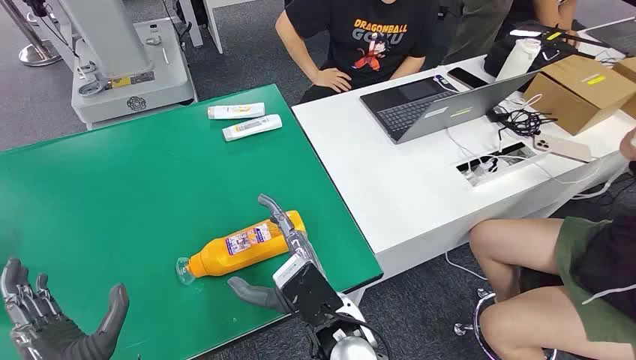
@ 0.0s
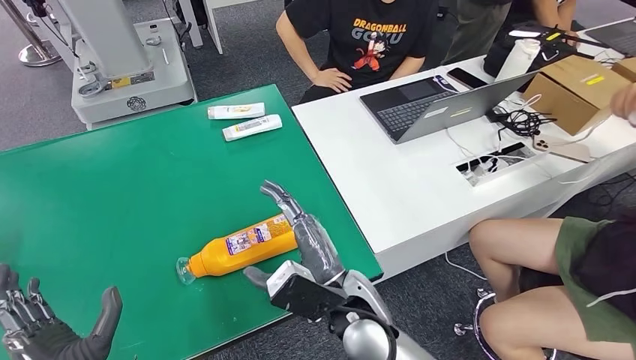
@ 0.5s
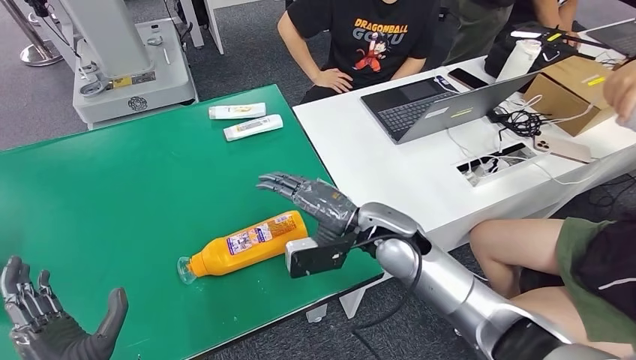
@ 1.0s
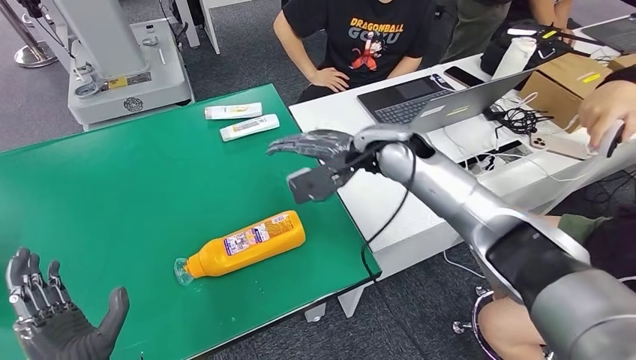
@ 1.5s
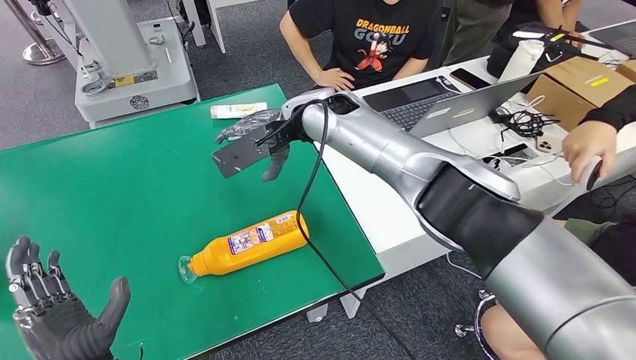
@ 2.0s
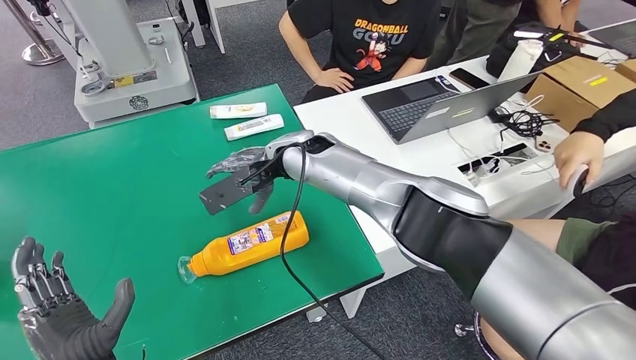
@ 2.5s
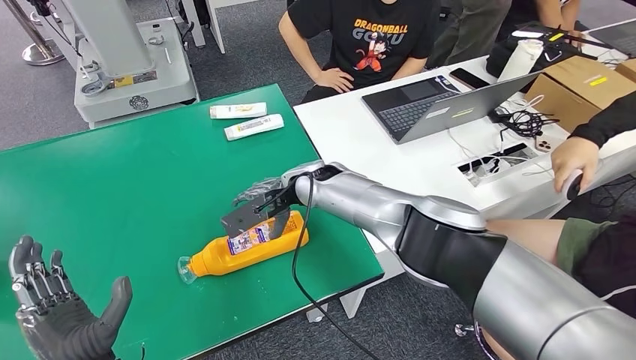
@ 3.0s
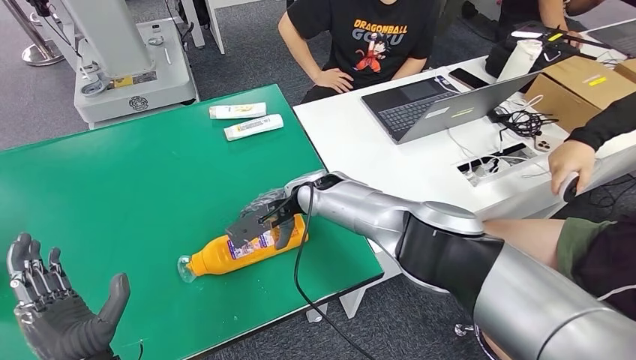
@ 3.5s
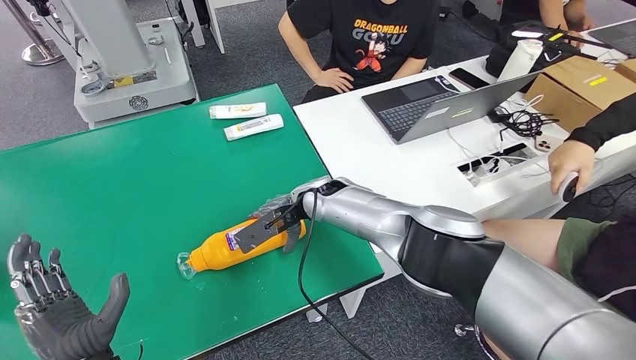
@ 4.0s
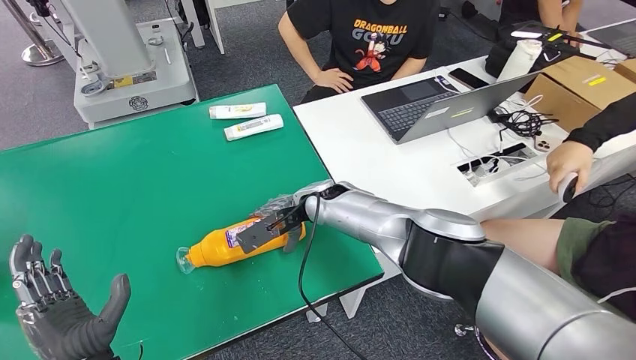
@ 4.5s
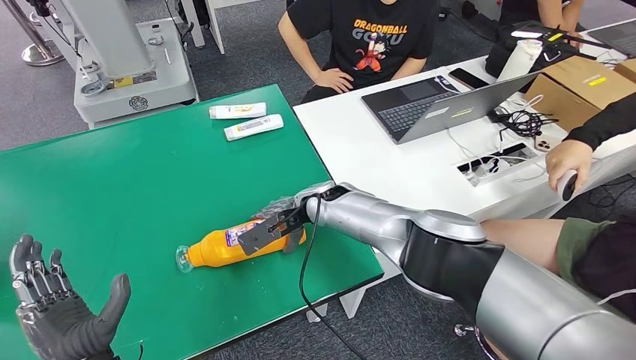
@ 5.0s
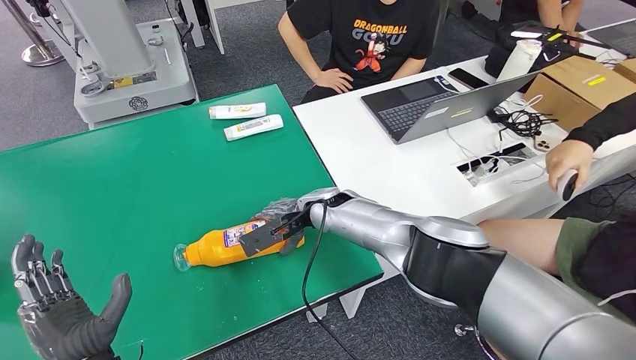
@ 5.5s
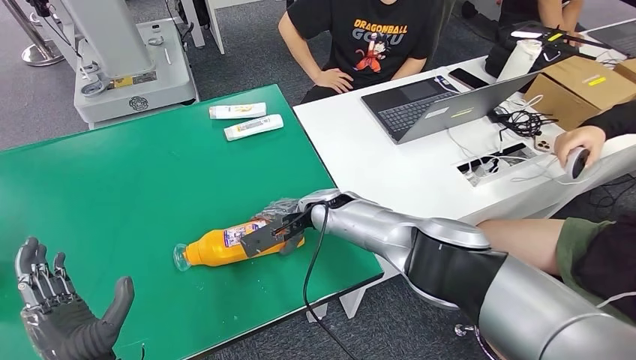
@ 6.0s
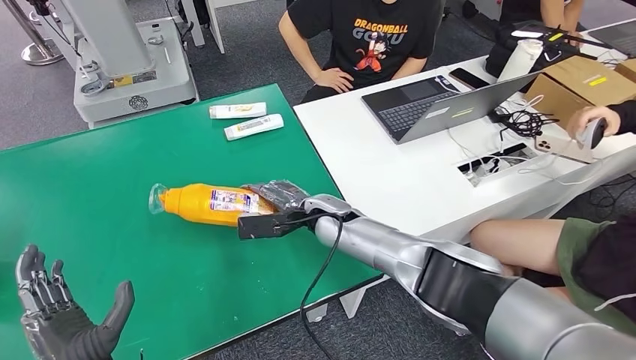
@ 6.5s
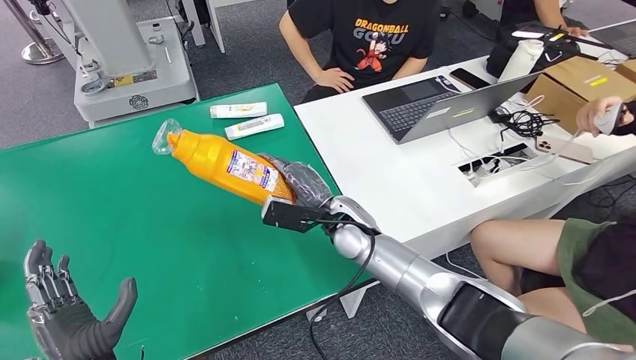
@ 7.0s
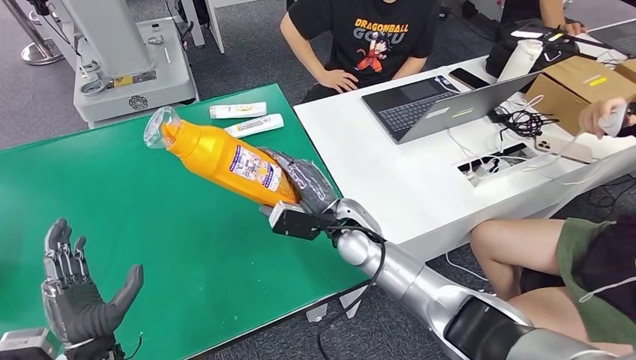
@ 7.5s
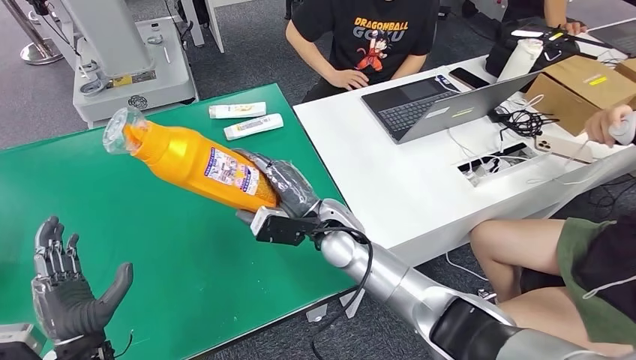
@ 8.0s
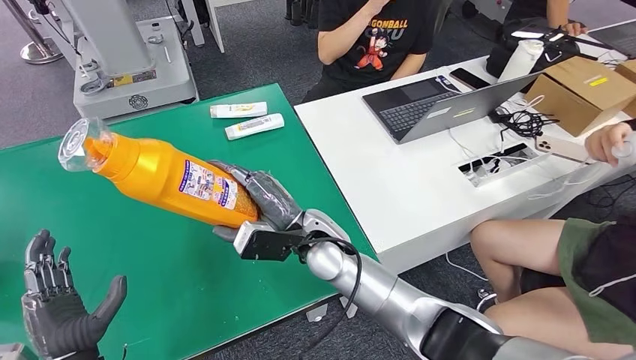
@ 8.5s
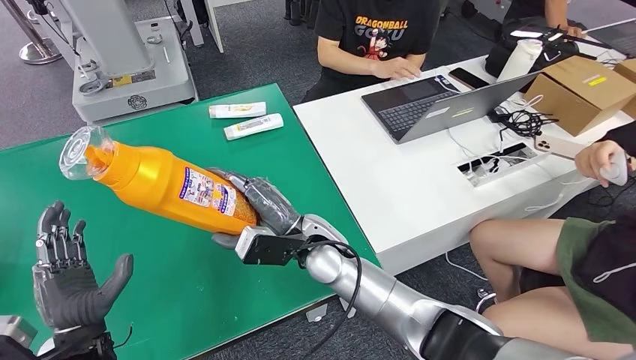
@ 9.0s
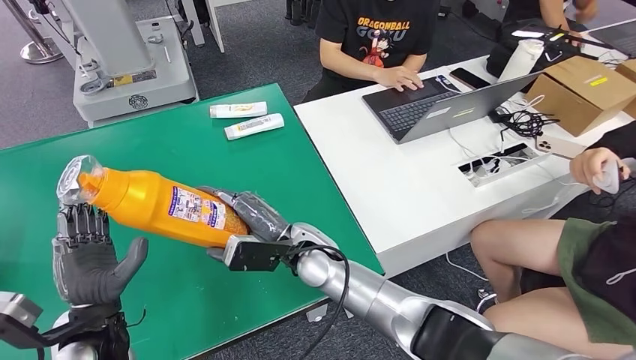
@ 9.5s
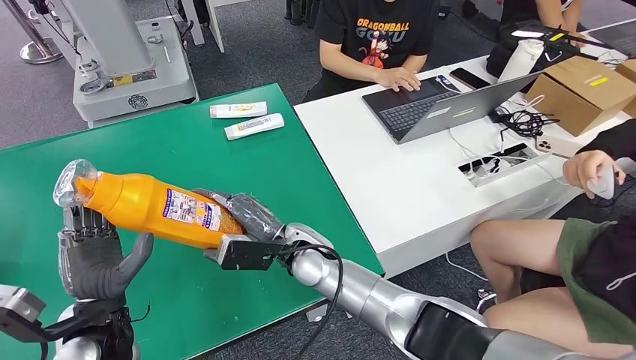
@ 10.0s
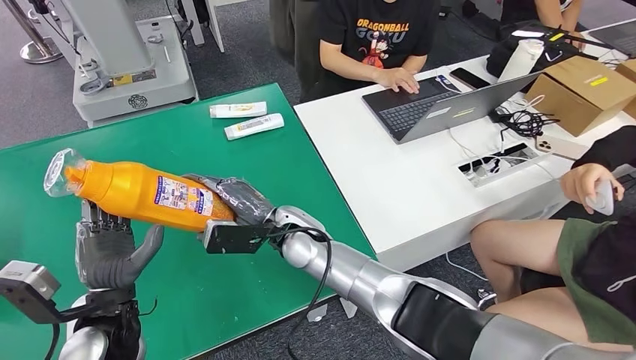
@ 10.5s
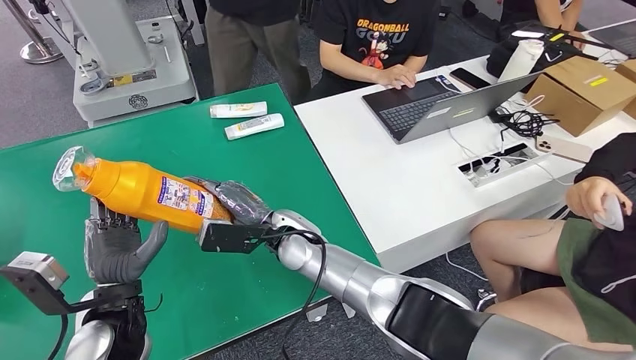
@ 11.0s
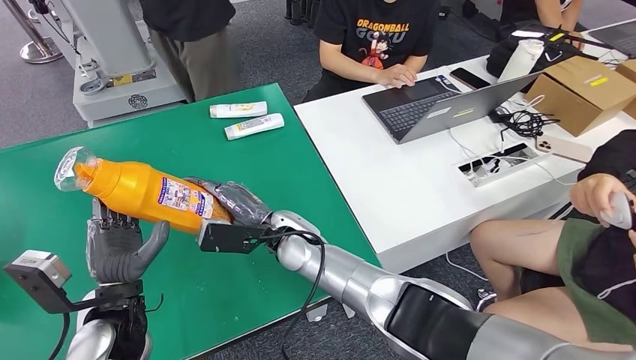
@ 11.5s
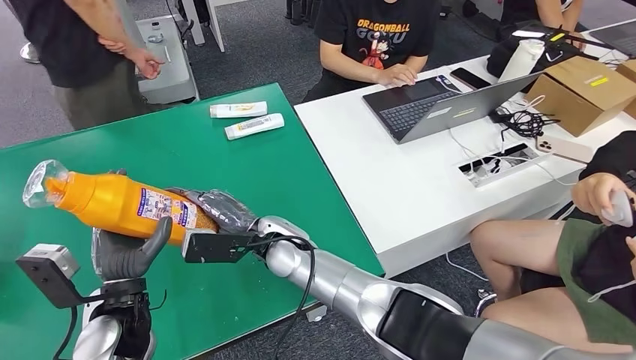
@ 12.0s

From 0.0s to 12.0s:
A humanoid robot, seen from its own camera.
Step, from 0.0s to 6.5s: Pick up the bottle from the table.
From 4.0s to 6.0s: There are only small adjustments of the hands.

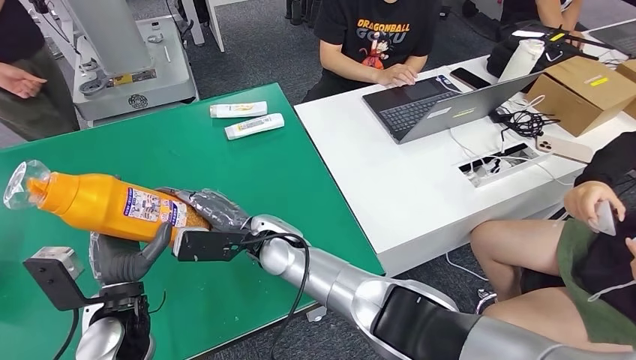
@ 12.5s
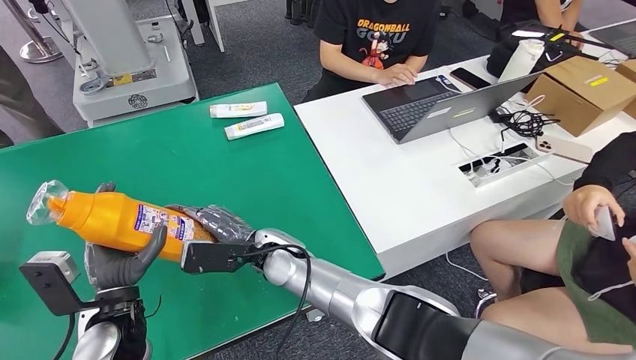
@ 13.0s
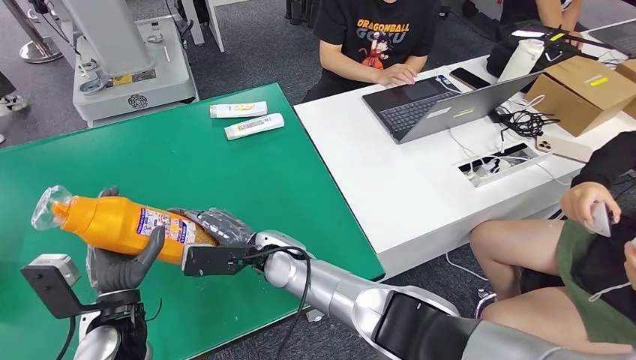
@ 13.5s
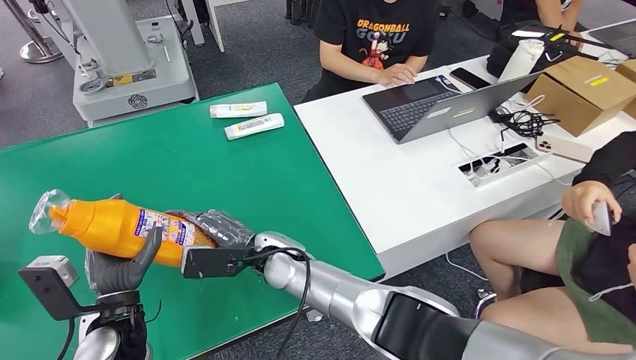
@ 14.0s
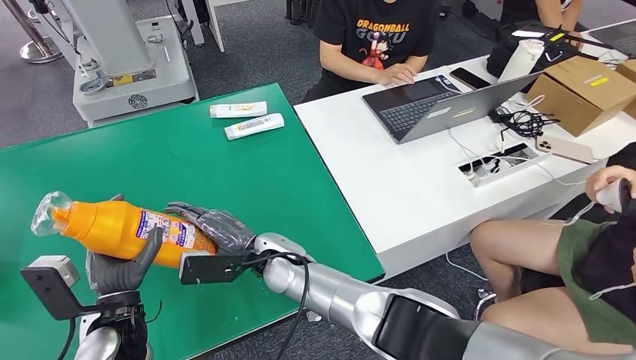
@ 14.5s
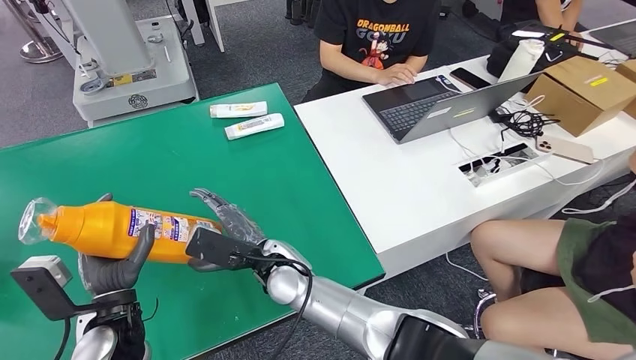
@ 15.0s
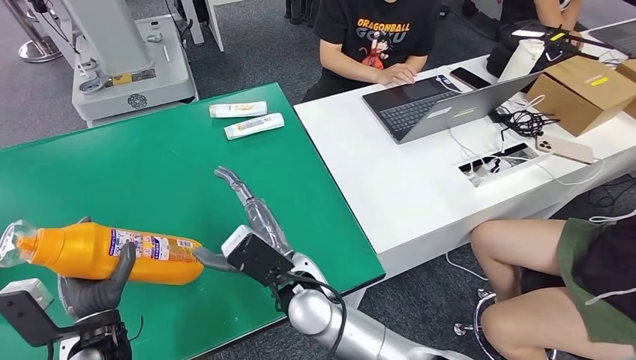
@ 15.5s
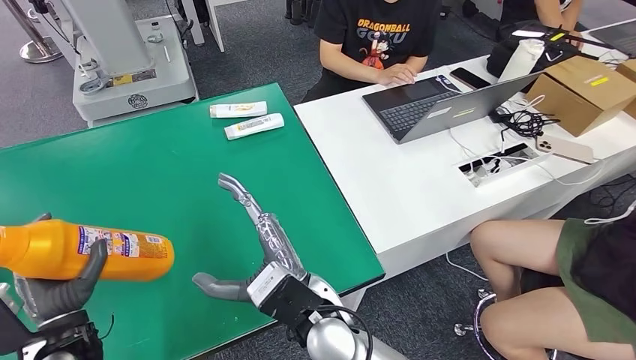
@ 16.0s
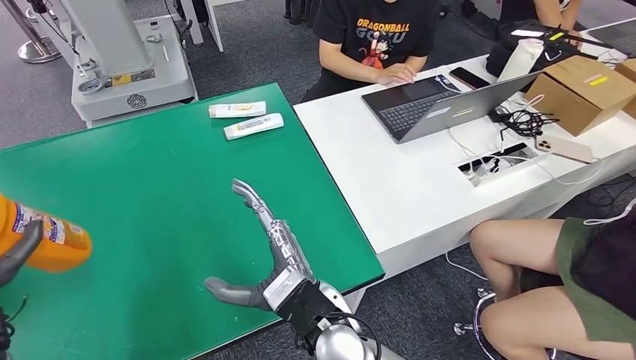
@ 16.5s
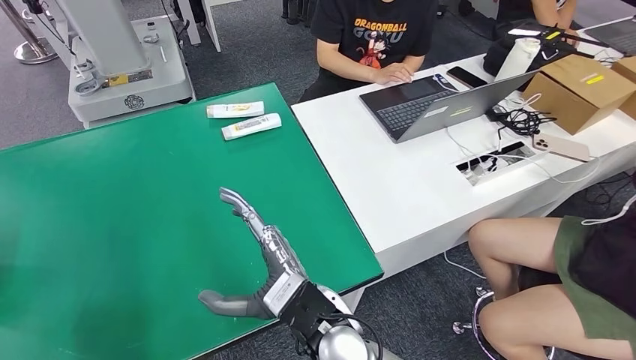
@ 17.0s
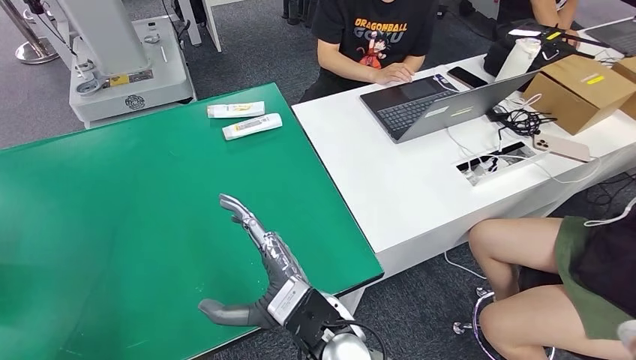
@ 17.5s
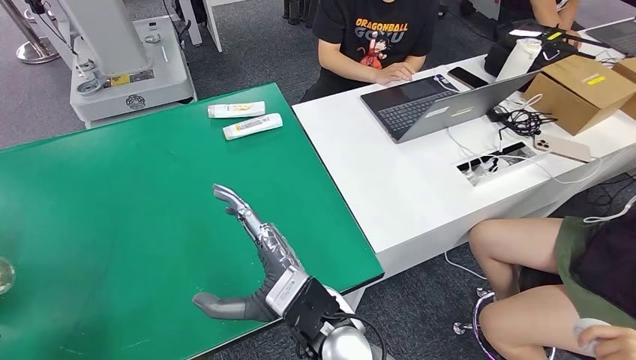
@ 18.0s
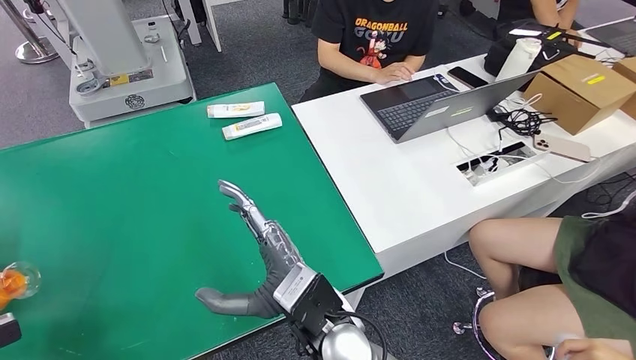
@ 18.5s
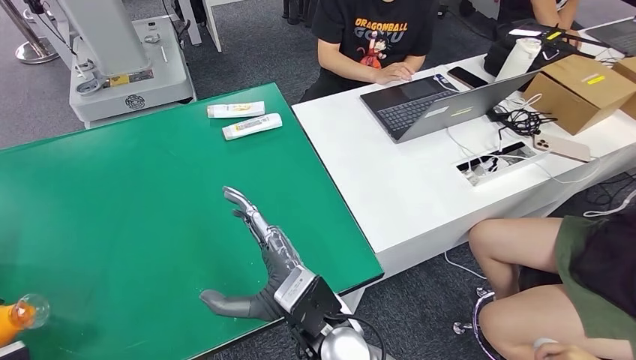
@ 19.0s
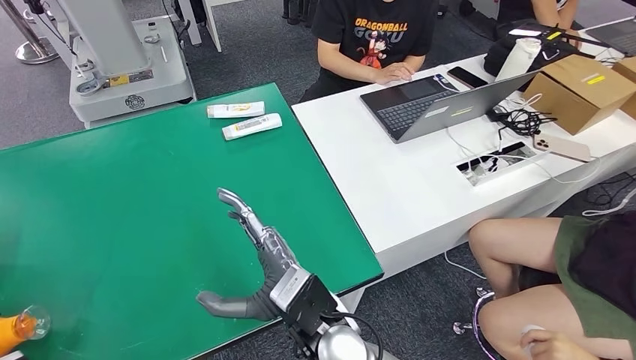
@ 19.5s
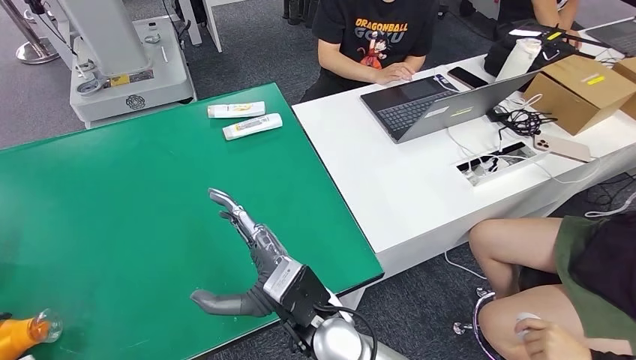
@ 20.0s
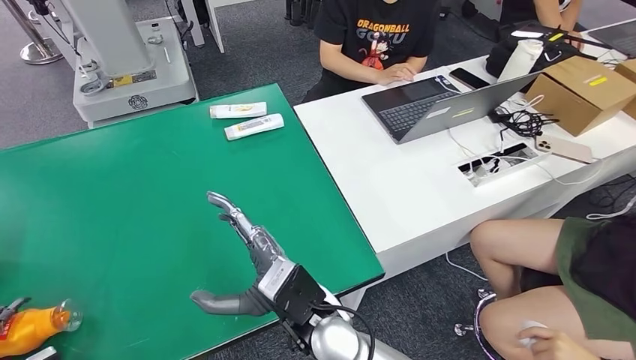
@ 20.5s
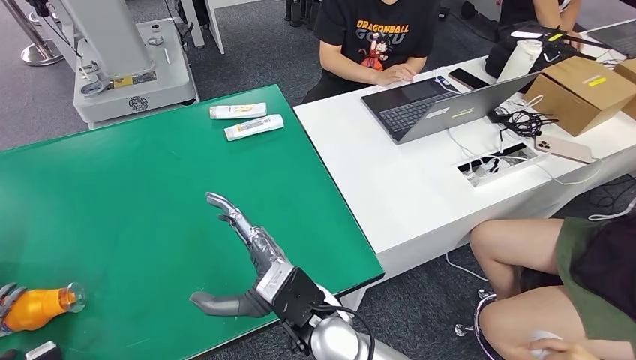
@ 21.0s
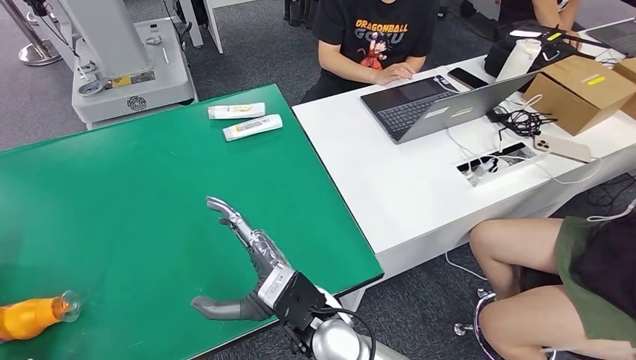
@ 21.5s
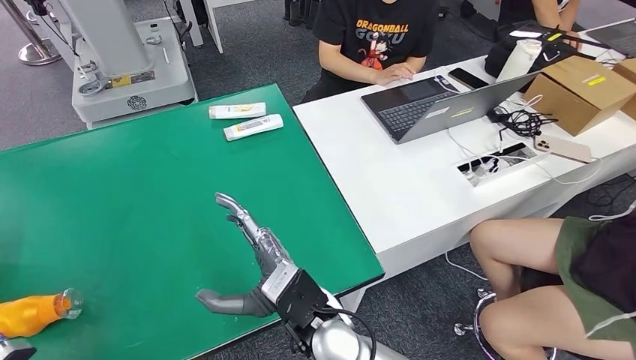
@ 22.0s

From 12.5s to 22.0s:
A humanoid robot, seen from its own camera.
Step, from 12.5s to 22.0s: Turn the bottle to the front side.
From 14.5s to 16.5s: The left hand is displaced to the left by about 15 cm, while the right hand travels backward and upward by about 15 cm.
From 16.5s to 18.0s: The left hand moves to the left, roughly 20 cm.
From 18.0s to 20.0s: The left hand shifts some 10 cm downward.
From 20.0s to 22.0s: The left hand travels to the right by approximately 5 cm.
